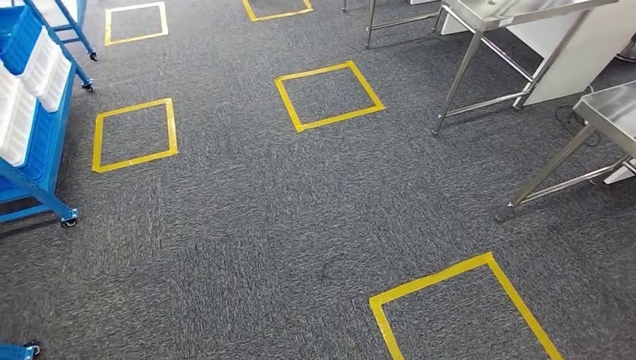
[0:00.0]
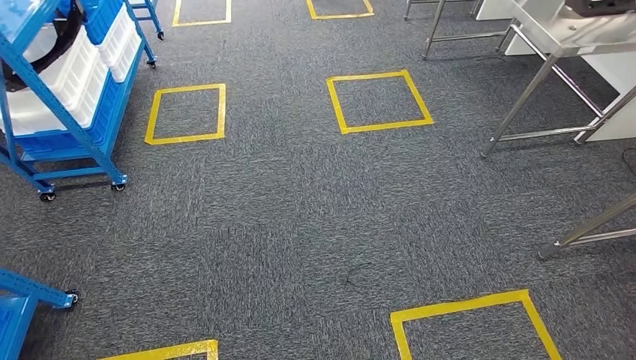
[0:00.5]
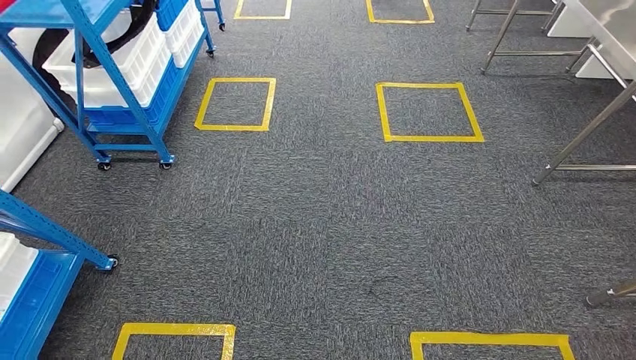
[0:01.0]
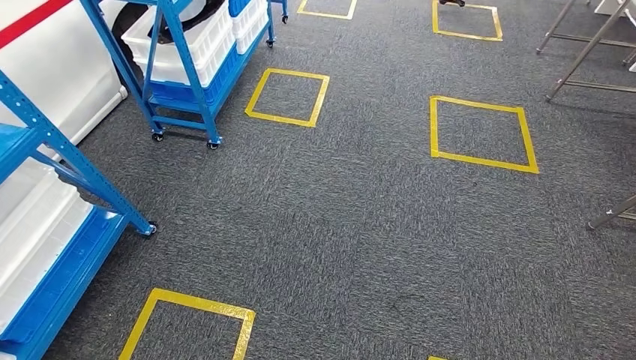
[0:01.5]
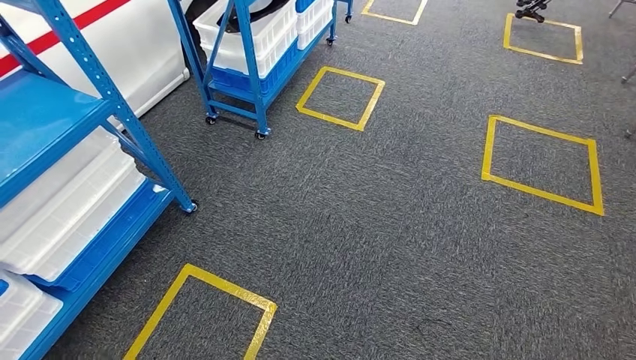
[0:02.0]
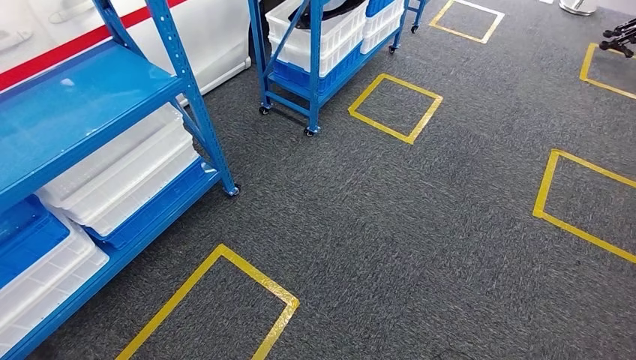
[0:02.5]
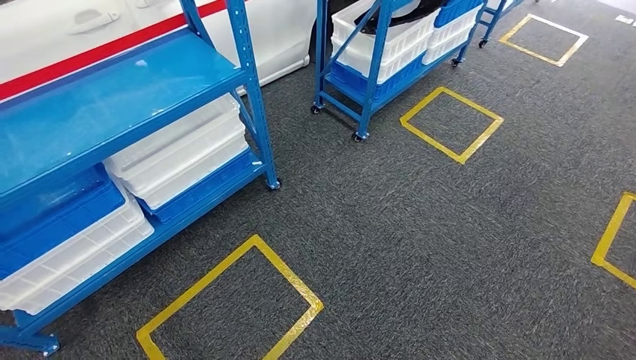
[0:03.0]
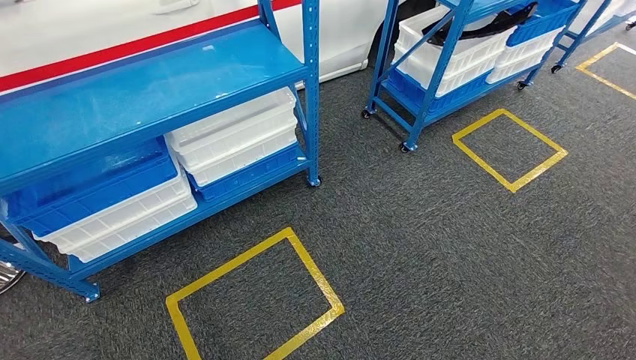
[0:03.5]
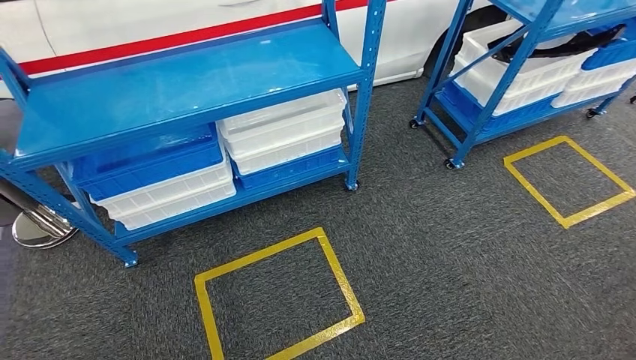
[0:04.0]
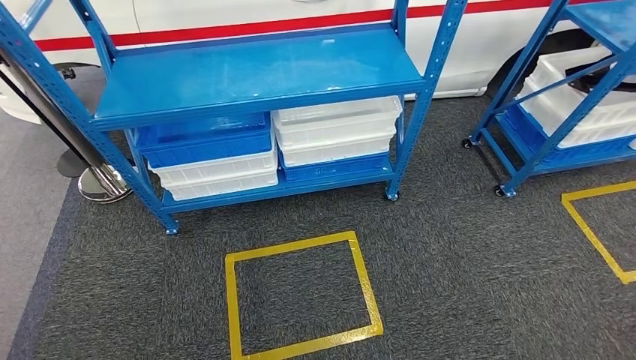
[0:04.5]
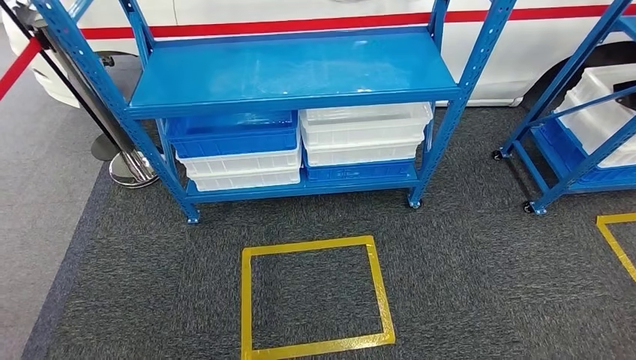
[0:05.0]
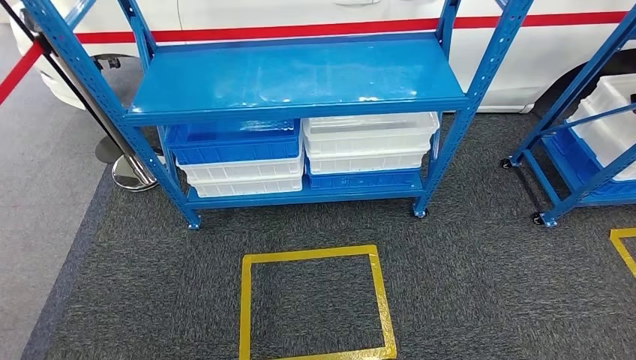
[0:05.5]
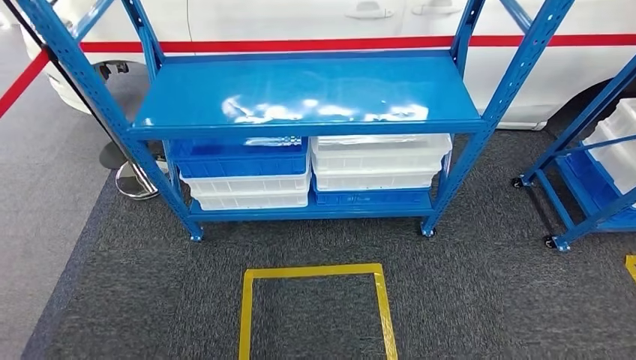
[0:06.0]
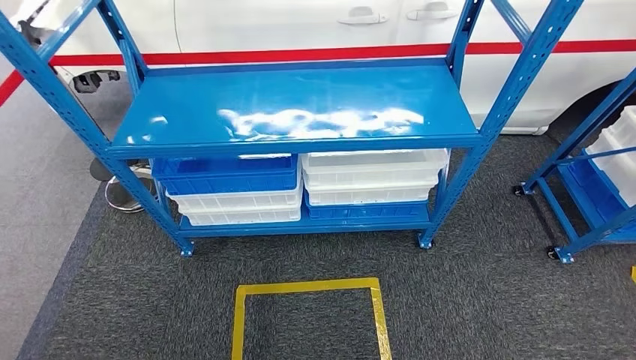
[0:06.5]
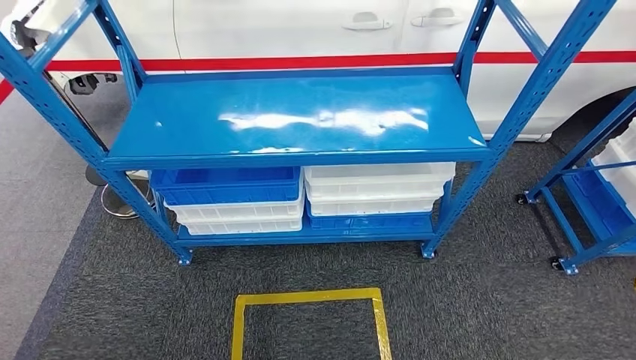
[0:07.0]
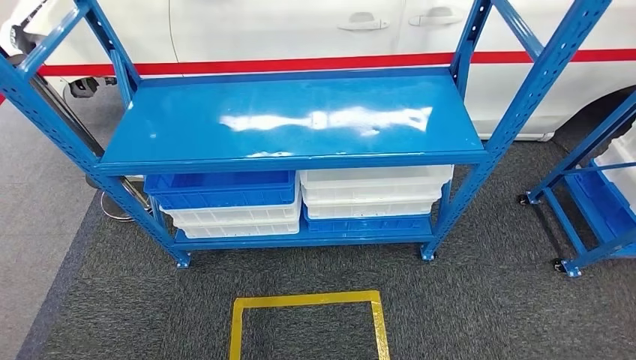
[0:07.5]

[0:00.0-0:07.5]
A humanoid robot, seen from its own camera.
Step, 0:00.0 to 0:07.5: Move to the initial position of the shelf.
